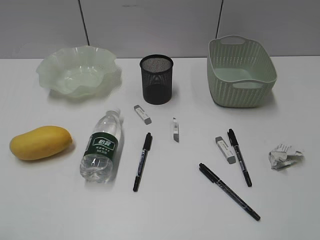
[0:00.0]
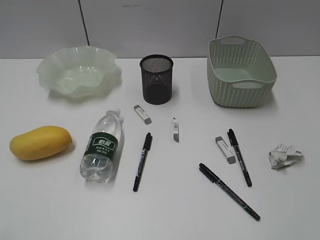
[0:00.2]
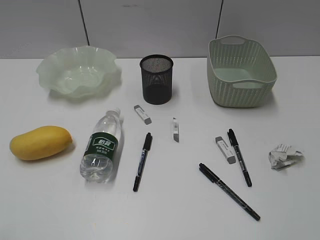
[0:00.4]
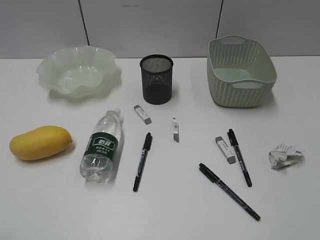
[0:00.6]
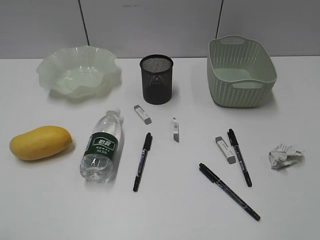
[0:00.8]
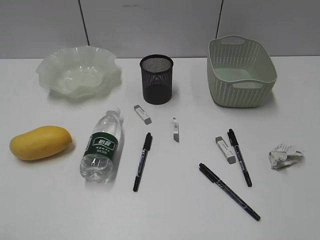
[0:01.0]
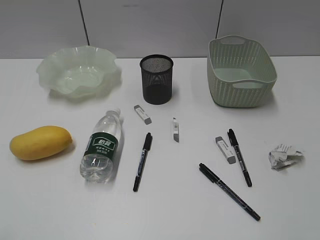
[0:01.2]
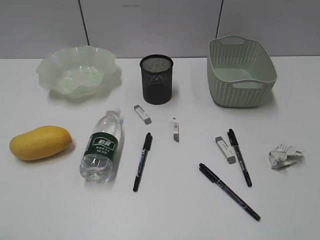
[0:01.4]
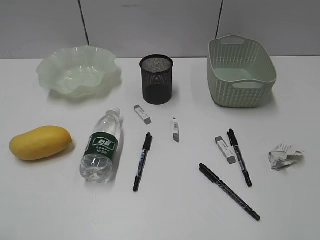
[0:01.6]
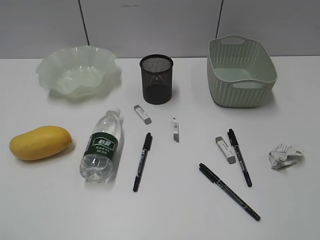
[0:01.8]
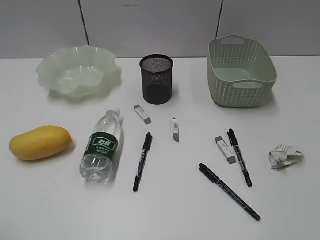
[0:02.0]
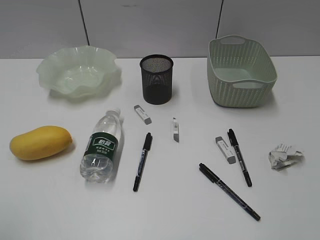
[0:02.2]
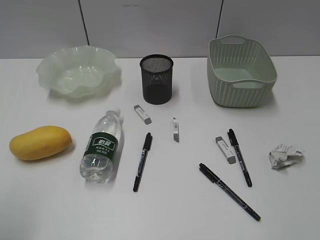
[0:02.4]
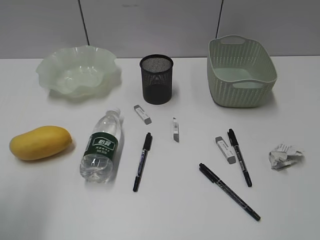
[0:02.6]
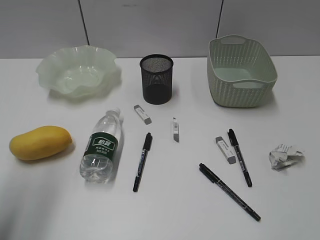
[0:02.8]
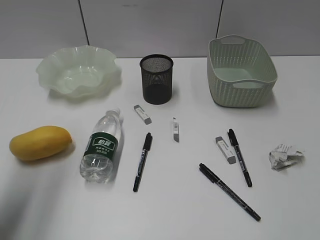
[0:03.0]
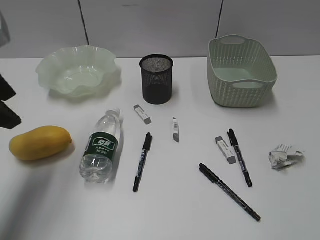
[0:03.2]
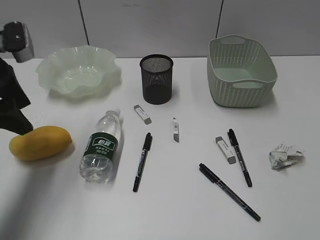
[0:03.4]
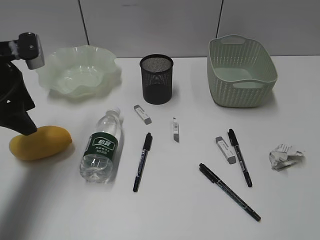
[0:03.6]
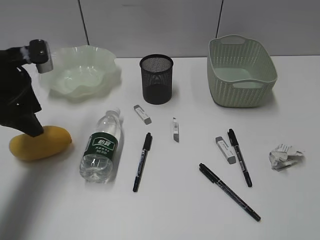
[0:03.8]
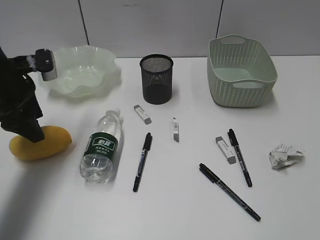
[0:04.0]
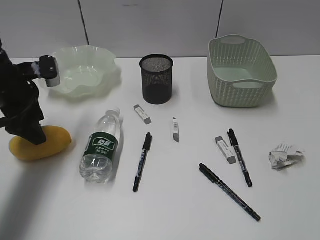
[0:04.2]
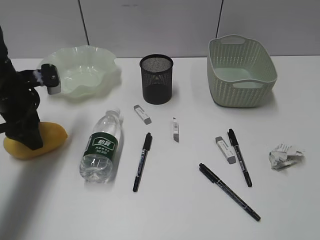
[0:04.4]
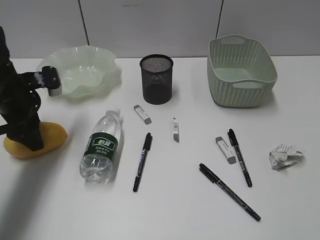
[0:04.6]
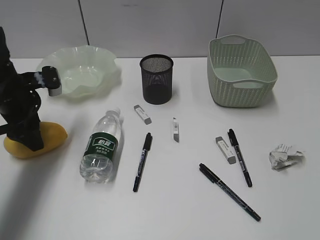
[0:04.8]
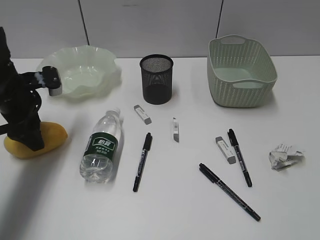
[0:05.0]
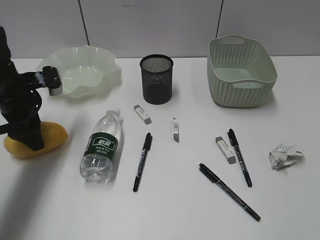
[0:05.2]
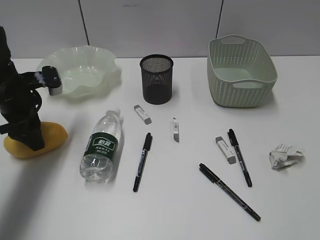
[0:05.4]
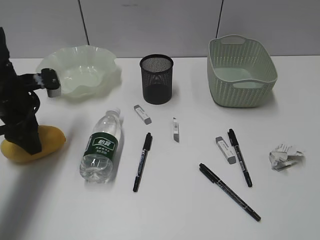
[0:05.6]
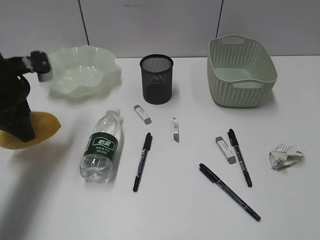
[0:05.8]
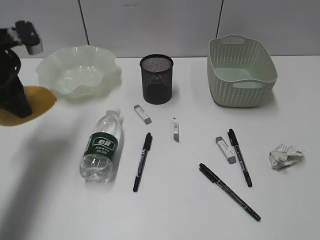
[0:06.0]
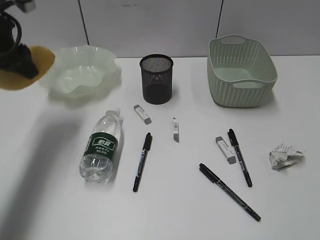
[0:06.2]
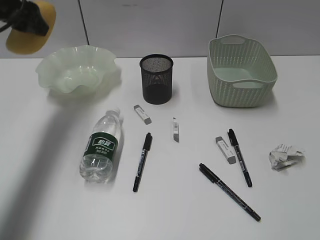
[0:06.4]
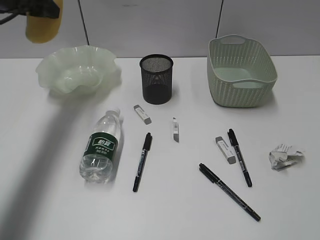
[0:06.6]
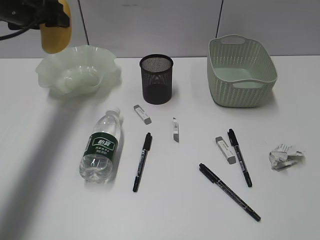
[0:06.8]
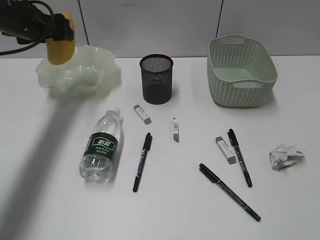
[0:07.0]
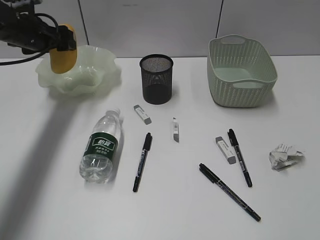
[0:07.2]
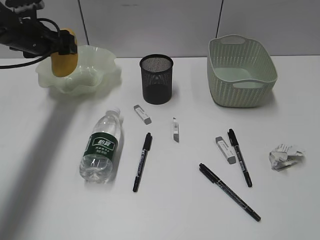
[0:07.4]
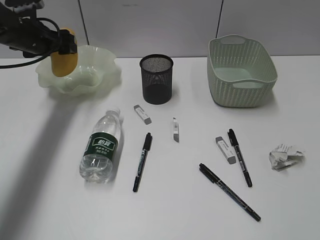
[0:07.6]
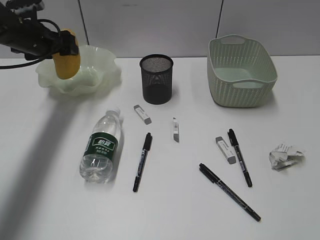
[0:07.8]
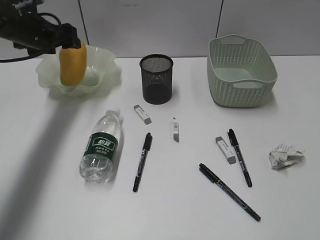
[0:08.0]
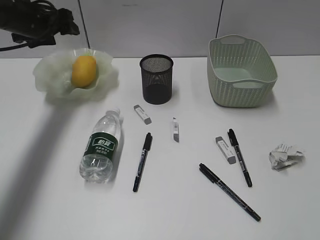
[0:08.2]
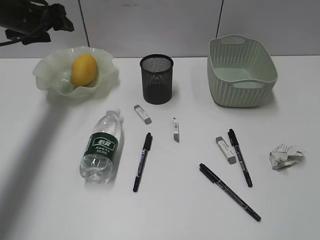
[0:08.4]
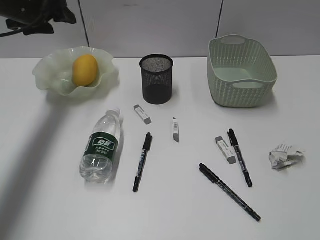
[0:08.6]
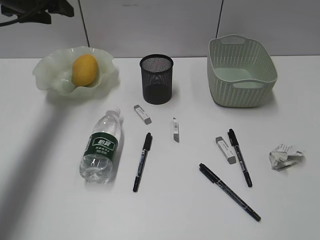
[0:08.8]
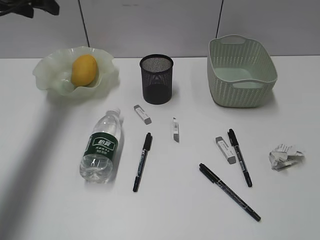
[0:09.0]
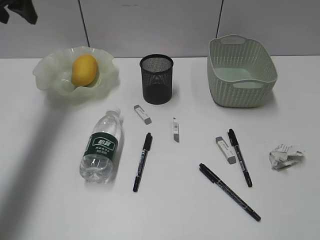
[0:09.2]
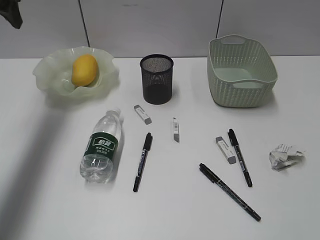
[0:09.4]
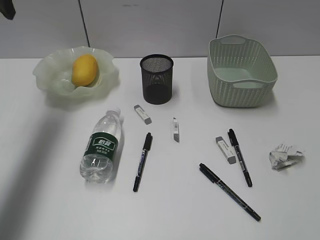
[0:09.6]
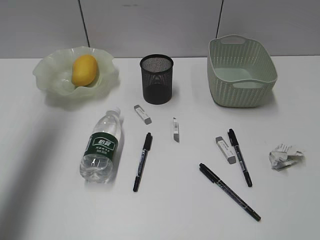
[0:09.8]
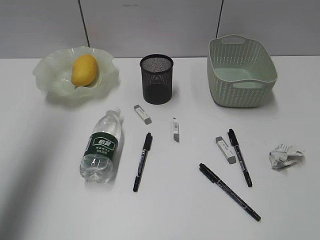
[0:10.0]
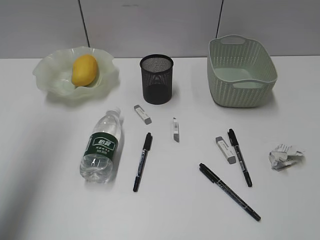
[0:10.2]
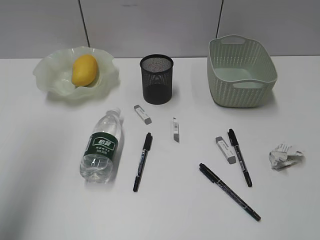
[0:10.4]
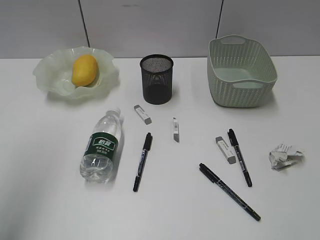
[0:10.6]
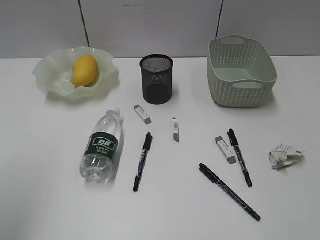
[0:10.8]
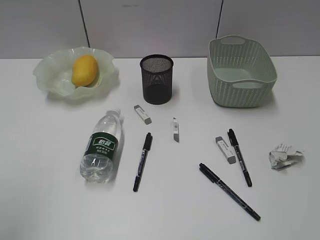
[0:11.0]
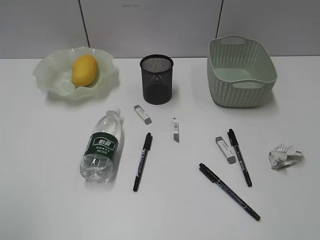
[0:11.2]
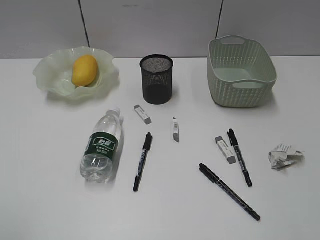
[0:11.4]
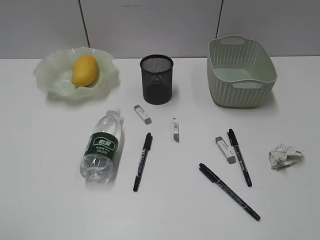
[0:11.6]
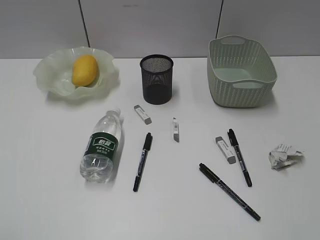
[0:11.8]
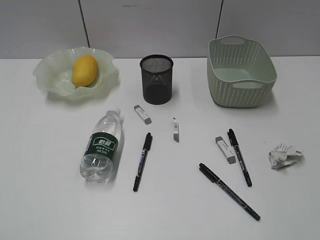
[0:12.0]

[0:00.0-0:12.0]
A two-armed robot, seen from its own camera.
Step, 0:03.2 to 0:05.4: Grasp the mango with left gripper.
Step, 0:05.6 to 0:08.0: Place the mango in the plate with left gripper.
0:01.6 to 0:03.0: The left gripper is displaced forward by about 25 cm.
0:03.0 to 0:04.4: The left gripper is displaced downward and forward by roughly 20 cm.
0:04.4 to 0:06.0: The left gripper goes some 10 cm upward.
0:06.0 to 0:07.6: The left gripper is displaced forward by roughly 10 cm.
0:07.6 to 0:09.0: The left gripper travels upward by roughly 10 cm.
0:09.0 to 0:10.4: The left gripper travels backward and upward by about 25 cm.
0:10.4 to 0:12.0: The left gripper is displaced backward and downward by some 30 cm.

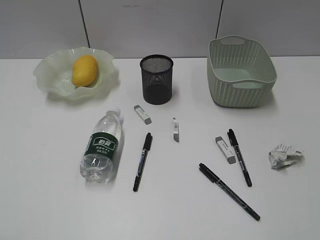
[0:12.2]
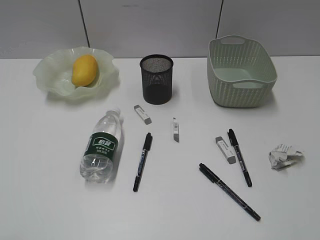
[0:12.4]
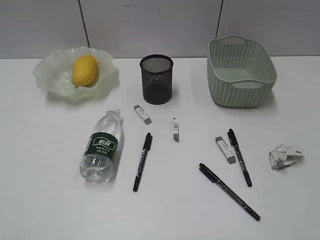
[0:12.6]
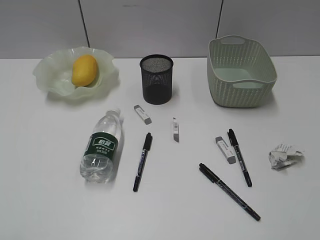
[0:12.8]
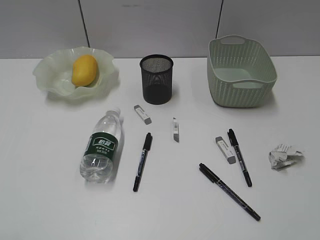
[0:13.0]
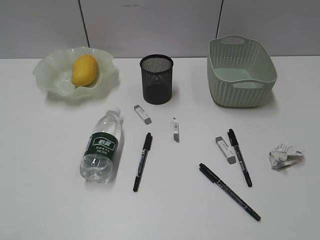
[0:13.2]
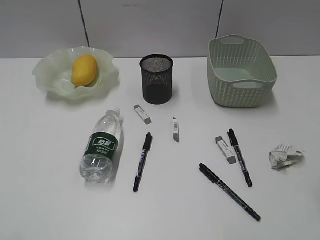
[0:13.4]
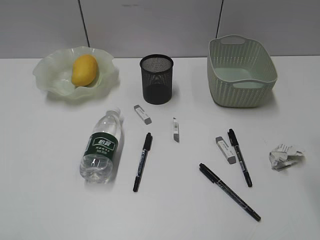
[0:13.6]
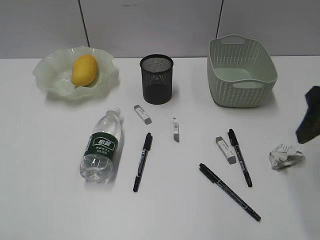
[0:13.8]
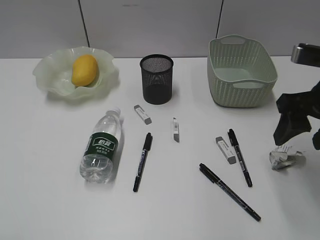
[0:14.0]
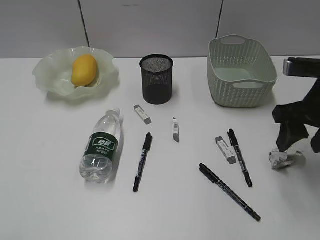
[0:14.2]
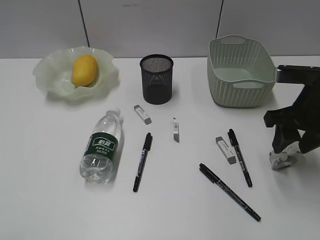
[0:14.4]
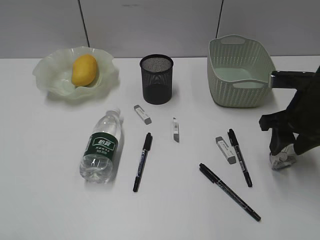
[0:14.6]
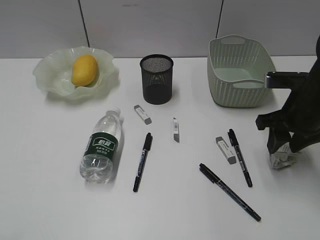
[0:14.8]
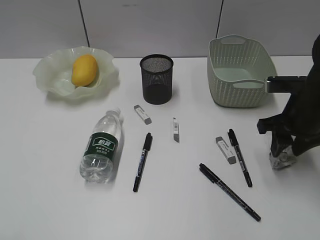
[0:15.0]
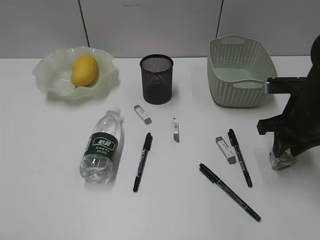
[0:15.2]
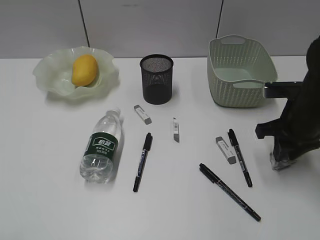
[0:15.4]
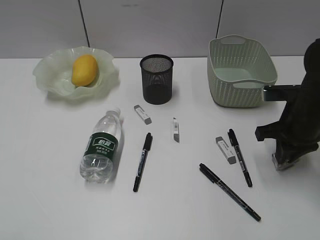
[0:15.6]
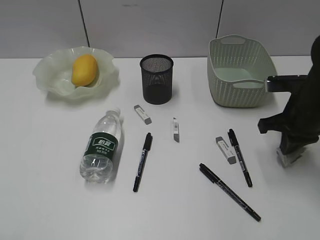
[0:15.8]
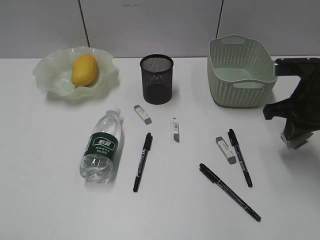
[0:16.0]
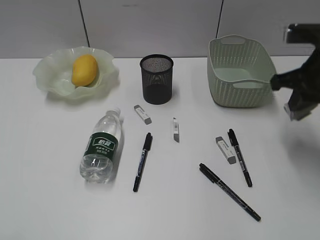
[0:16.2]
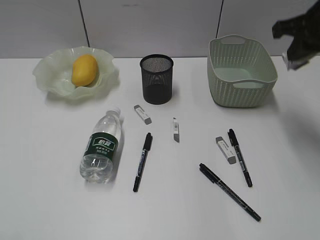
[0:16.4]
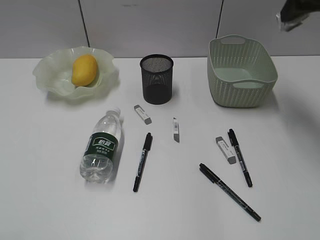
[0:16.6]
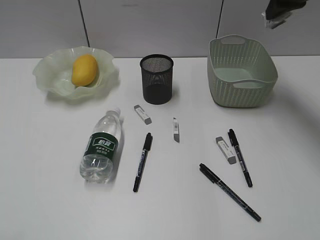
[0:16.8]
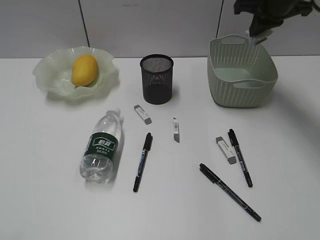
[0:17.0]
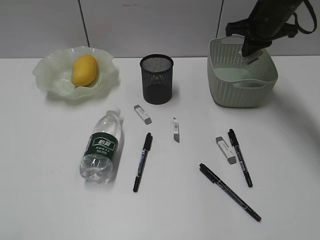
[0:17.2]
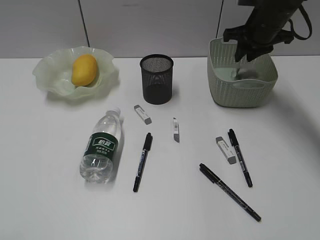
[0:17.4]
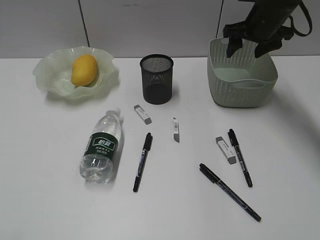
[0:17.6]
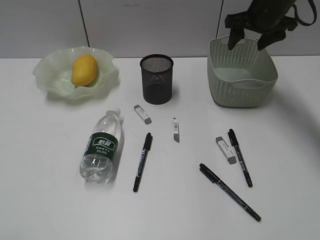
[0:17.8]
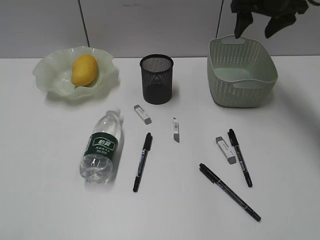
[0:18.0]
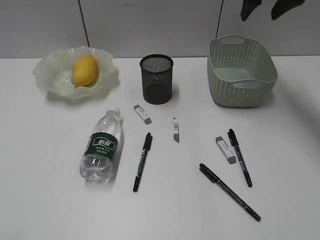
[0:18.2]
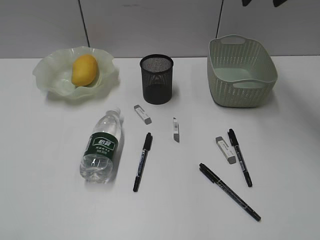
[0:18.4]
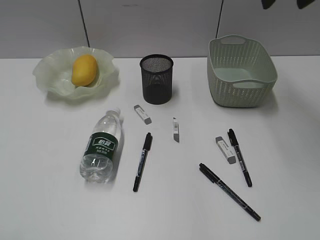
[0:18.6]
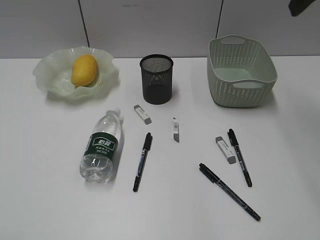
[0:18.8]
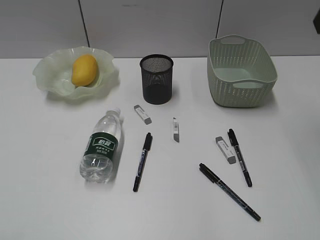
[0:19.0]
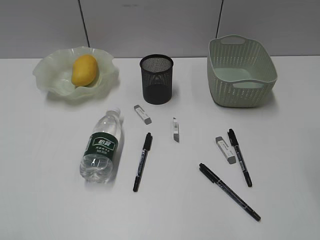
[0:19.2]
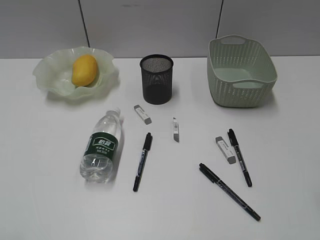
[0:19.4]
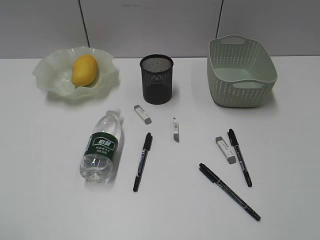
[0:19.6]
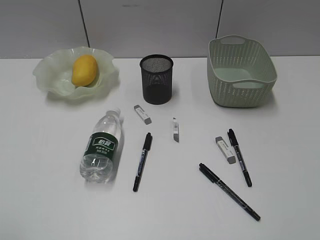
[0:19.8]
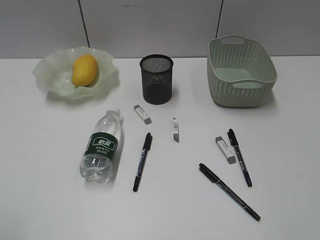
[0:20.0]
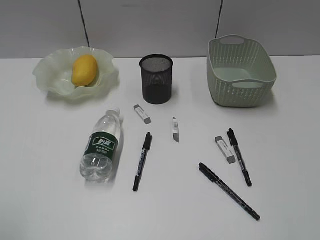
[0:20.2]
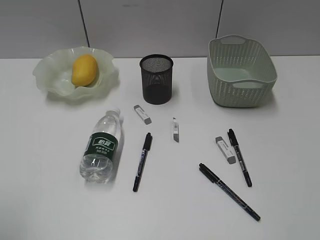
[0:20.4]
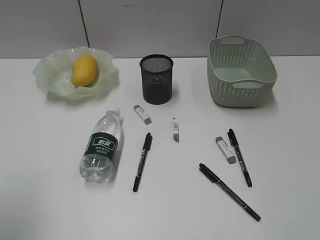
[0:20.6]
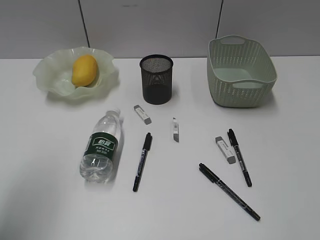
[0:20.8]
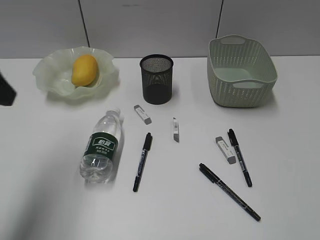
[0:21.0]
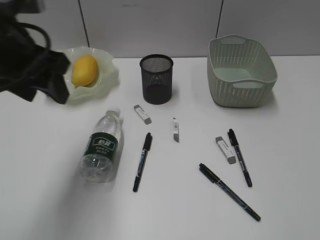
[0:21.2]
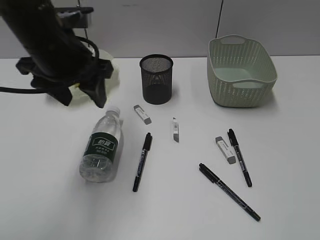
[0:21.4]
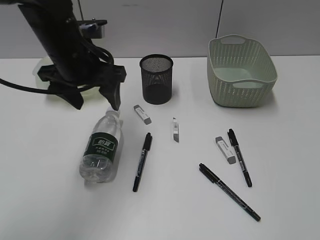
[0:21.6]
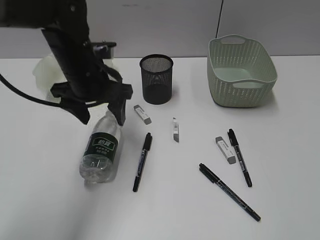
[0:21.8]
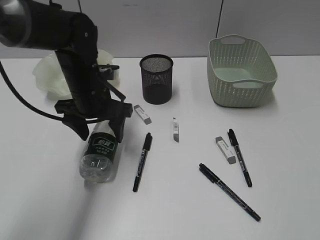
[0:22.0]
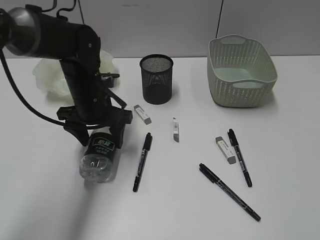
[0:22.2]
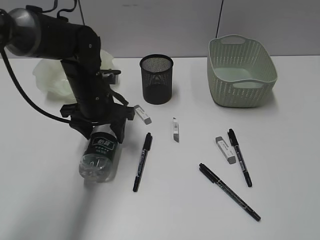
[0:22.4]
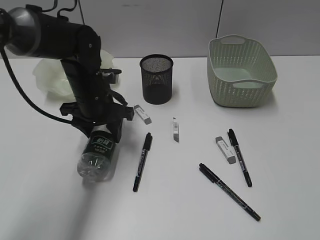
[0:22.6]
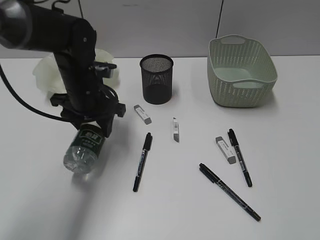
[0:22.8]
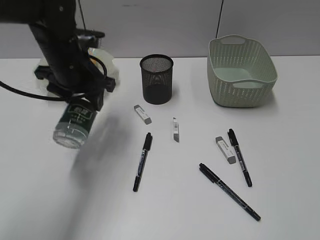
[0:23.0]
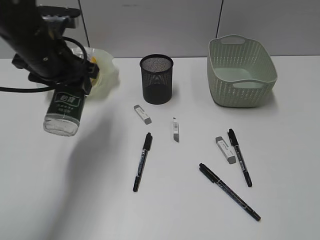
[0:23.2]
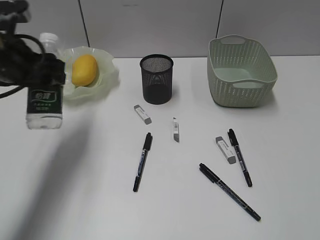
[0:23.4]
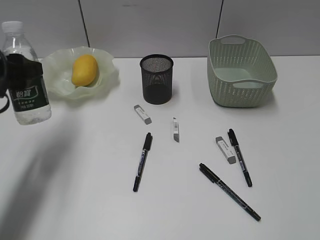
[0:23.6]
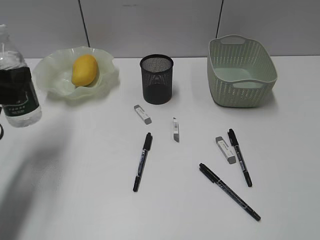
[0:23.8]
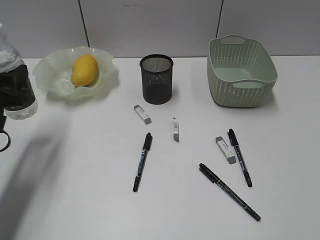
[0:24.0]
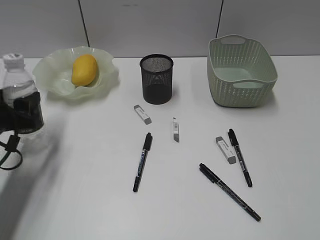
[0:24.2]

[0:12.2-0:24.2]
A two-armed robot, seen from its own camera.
Step, 0:12.2 to 0:15.8: Grasp the waste paper with right gripper.
Step, 0:16.0 to 0:17.4: Place the waste paper in the basket with right gripper.
Step, 0:17.6 to 0:22.4: Grasp the bottle with left gripper.
0:12.2 to 0:13.8: The right gripper goes some 25 cm forward.
0:13.8 to 0:15.2: The right gripper shifts some 15 cm downward and forward, and closes.
0:15.2 to 0:16.6: The right gripper shifts roughly 20 cm upward and forward, and closes.
0:16.6 to 0:18.2: The right gripper goes approximately 10 cm forward, goes downward and returns, about 10 cm each way, and opens its fingers.
0:18.2 to 0:19.8: The right gripper moves backward, about 40 cm.
0:19.8 to 0:21.2: The right gripper shifts about 5 cm backward. Meanwhile the left gripper heads forward and to the right, covering some 30 cm.
0:21.2 to 0:22.6: The left gripper moves downward and forward, approximately 20 cm.
0:22.6 to 0:24.2: The left gripper goes some 20 cm to the left and backward.
